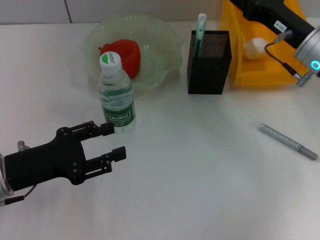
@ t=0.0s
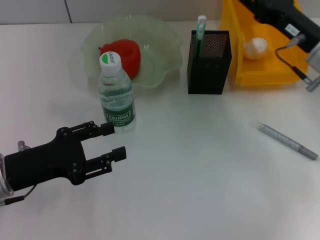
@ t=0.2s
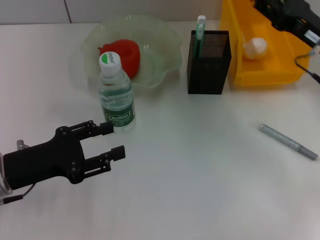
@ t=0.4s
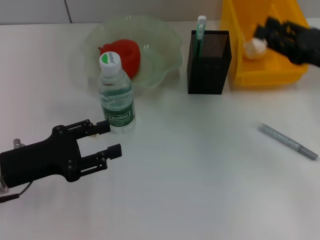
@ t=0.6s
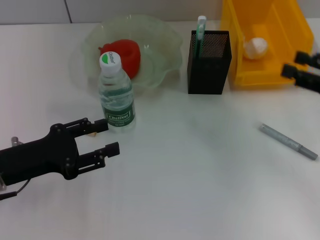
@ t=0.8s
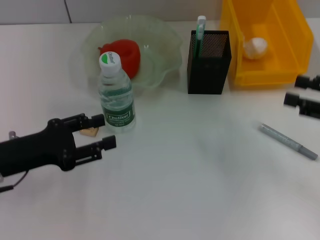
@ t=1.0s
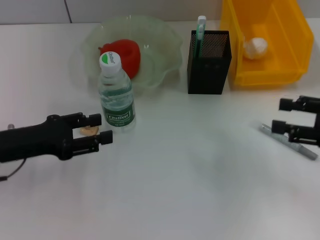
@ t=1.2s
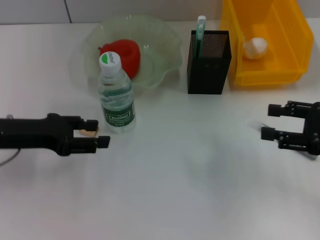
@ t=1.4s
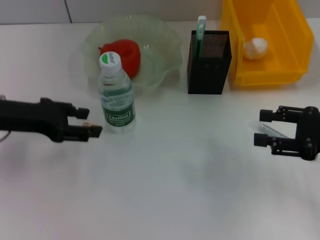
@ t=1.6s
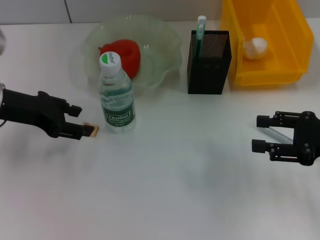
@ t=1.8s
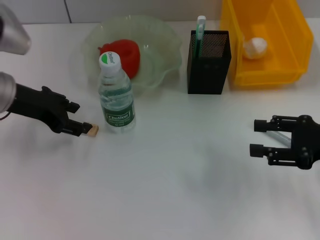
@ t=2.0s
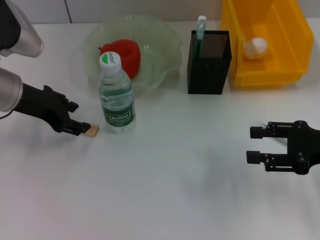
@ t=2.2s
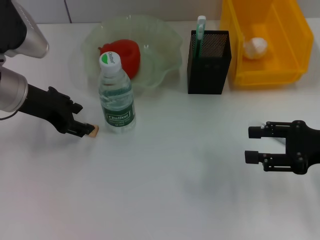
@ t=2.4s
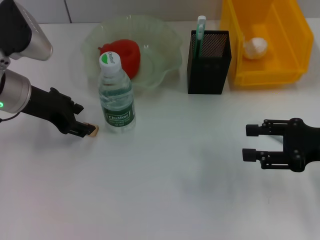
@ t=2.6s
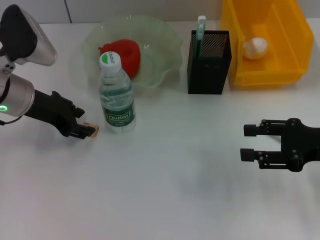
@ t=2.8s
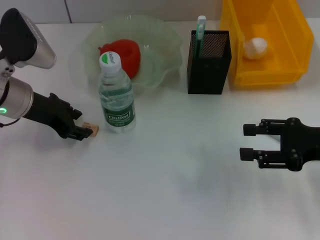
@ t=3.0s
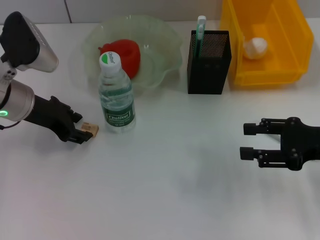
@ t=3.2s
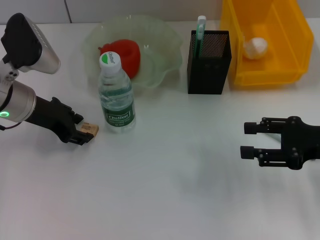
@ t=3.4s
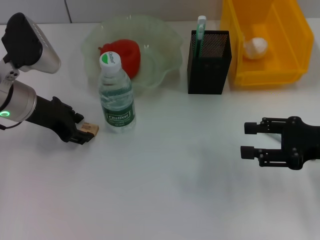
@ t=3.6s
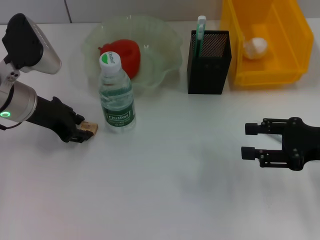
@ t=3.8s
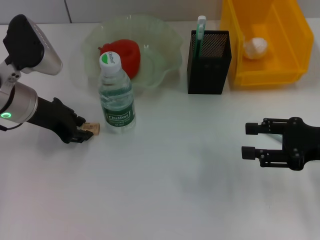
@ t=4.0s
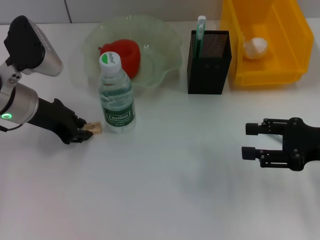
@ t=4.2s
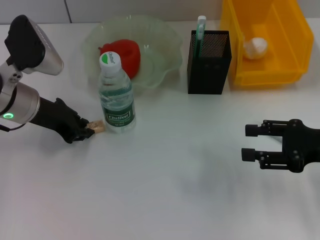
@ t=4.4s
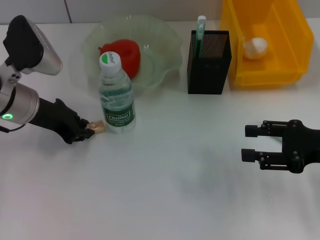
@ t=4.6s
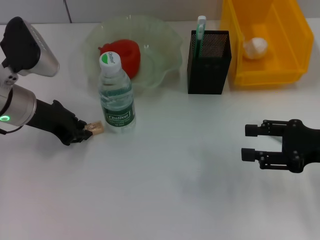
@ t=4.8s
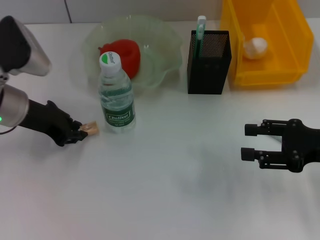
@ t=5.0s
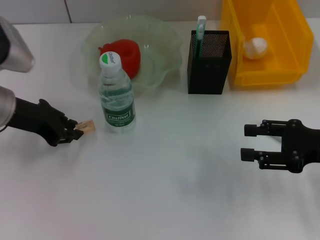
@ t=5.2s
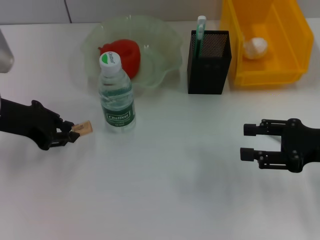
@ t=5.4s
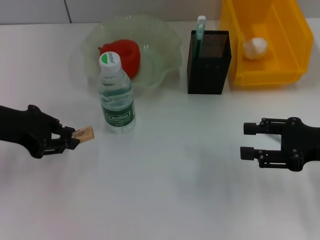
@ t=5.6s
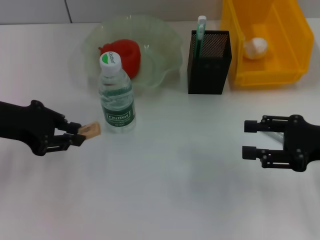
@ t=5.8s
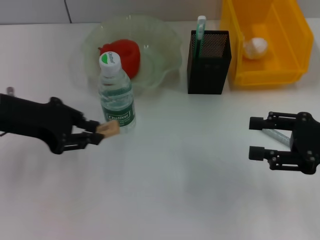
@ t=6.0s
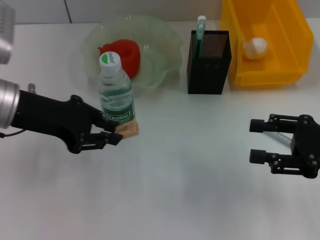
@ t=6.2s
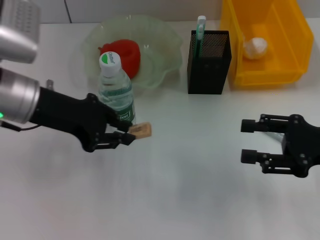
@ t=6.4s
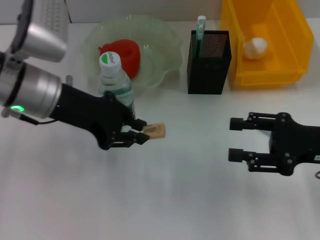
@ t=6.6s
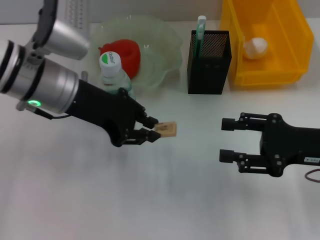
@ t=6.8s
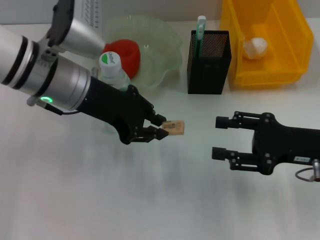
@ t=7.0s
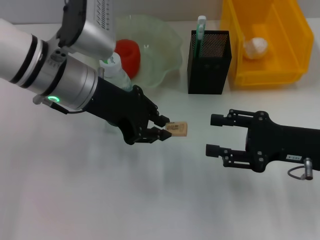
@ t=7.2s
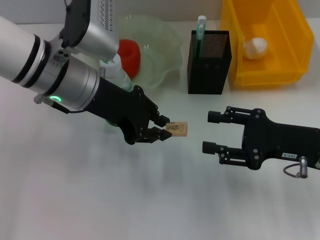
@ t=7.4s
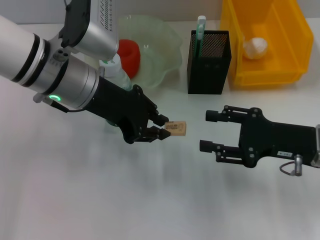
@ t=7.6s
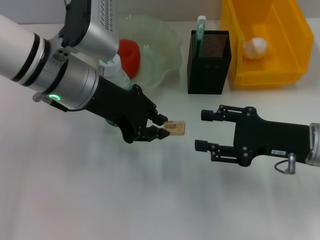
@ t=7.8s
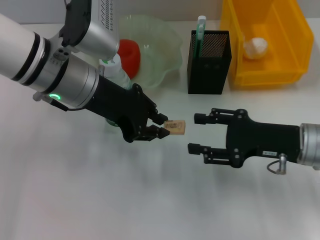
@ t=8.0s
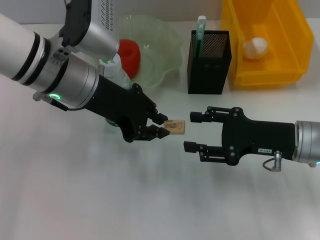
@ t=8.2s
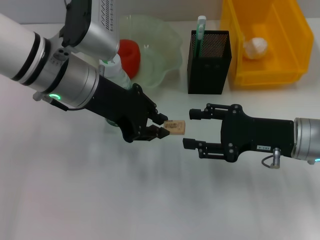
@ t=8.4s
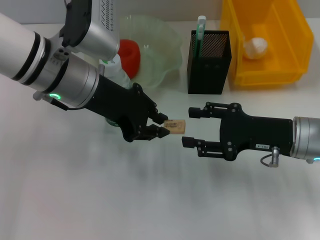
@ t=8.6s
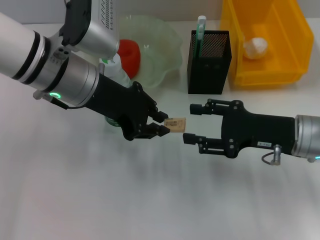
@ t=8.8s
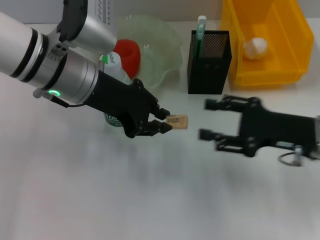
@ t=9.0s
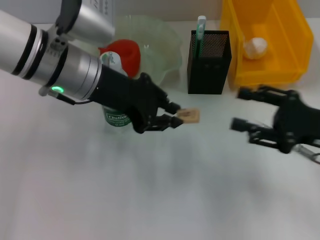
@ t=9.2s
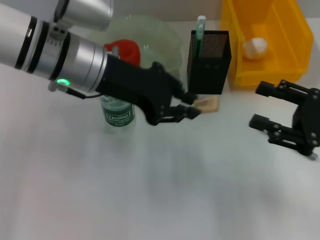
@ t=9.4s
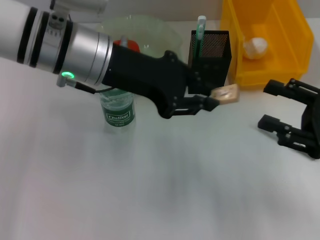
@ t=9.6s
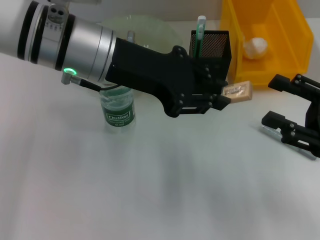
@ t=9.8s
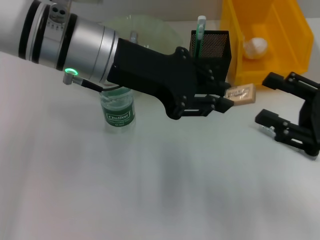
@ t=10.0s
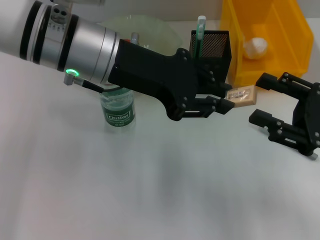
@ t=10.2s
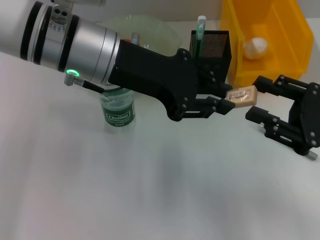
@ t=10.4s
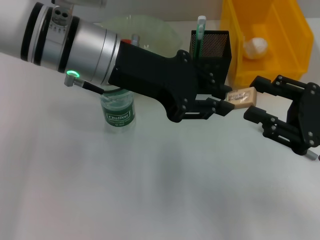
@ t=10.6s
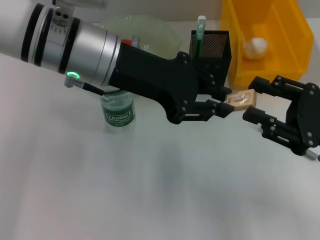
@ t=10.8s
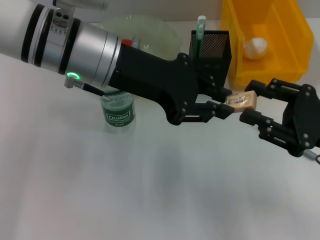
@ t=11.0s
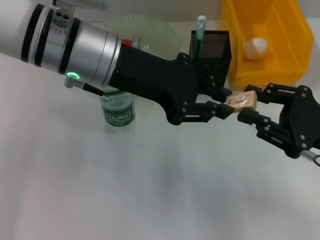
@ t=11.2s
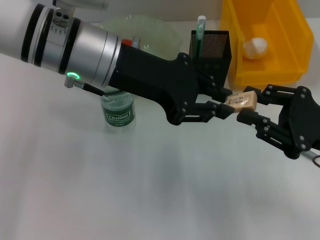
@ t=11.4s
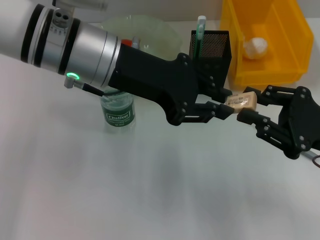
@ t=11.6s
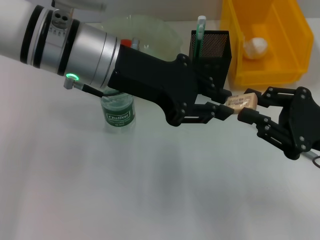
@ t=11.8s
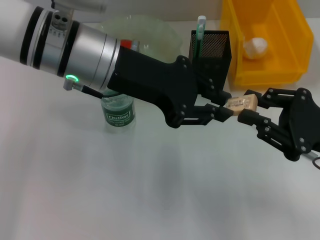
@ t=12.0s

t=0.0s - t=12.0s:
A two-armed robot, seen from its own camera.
Step, t=0.0s - t=4.6s: Grab the eraser with the left hand.
t=0.0s - t=1.6s: The left gripper is displaced forward and upward by some 10 cm. Meanwhile the right gripper moves backward and to the right, about 15 cm.
t=1.6s - t=3.0s: The left gripper shifts by some 5 cm.
t=3.0s - t=4.4s: The left gripper closes up.
t=4.4s - t=6.0s: The left gripper heads upward, covering approximately 5 cm.
t=6.0s - t=7.6s: The left gripper heads to the right, covering roughly 10 cm, while the right gripper travels to the left by roughly 5 cm.
t=7.6s - t=9.0s: The grippers make only small movements.
t=10.4s - t=12.0s: The right gripper closes its fingers.

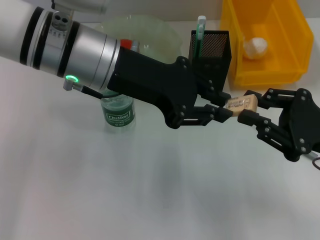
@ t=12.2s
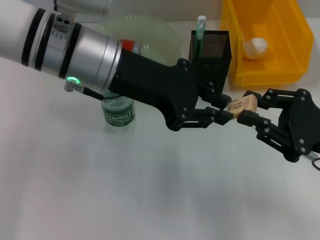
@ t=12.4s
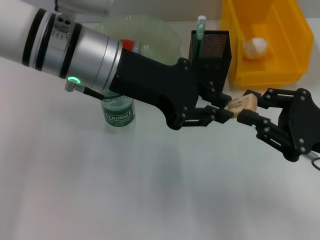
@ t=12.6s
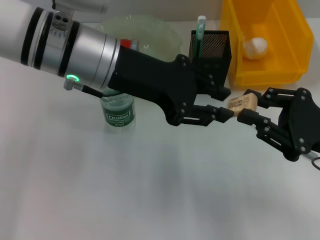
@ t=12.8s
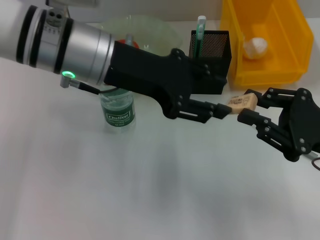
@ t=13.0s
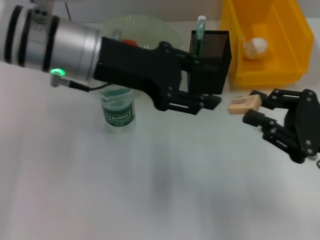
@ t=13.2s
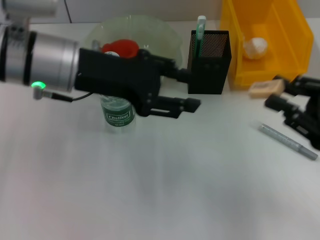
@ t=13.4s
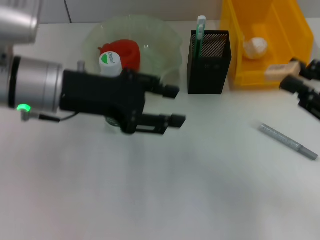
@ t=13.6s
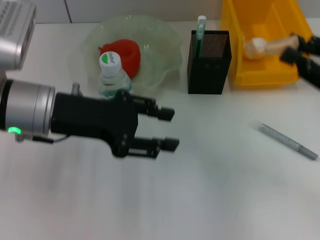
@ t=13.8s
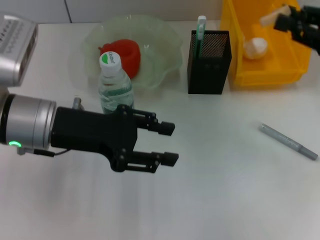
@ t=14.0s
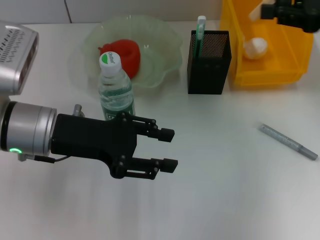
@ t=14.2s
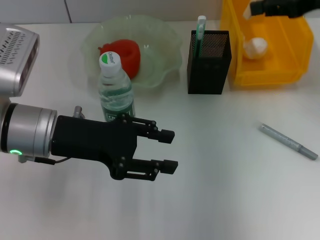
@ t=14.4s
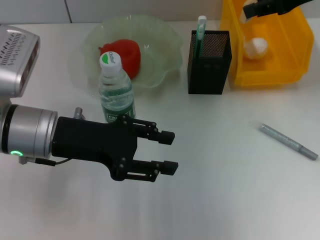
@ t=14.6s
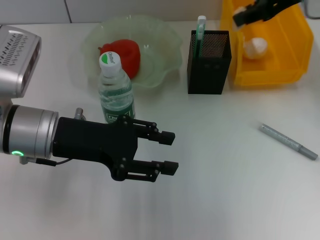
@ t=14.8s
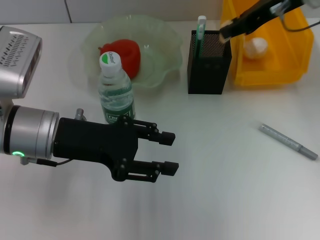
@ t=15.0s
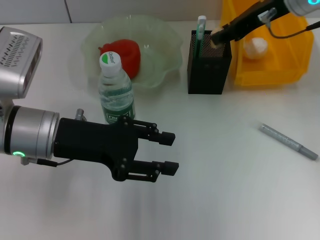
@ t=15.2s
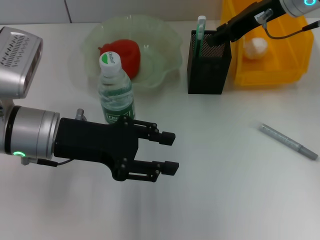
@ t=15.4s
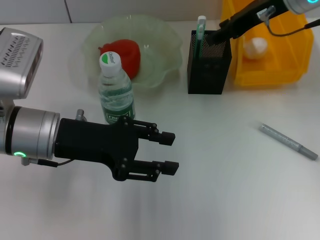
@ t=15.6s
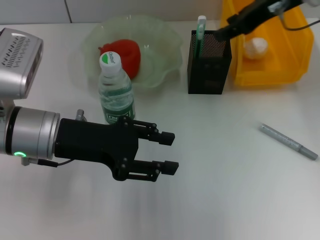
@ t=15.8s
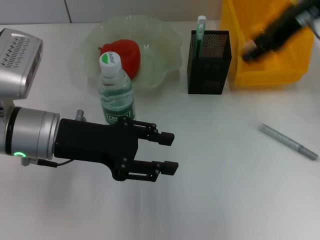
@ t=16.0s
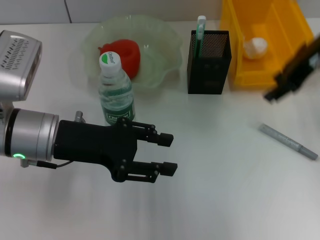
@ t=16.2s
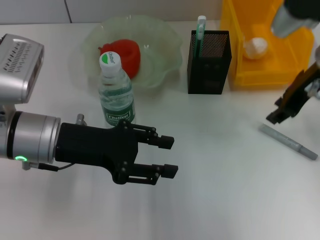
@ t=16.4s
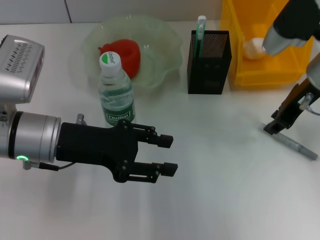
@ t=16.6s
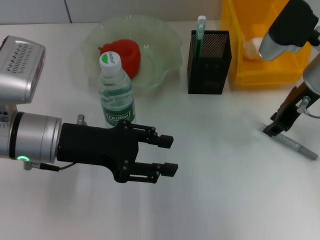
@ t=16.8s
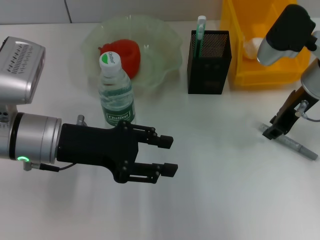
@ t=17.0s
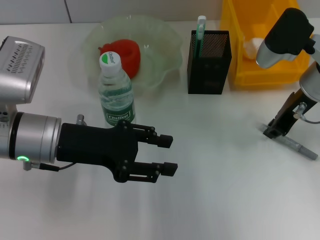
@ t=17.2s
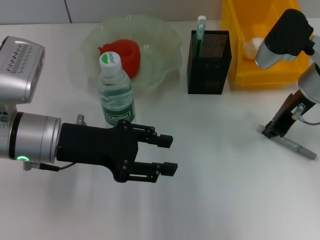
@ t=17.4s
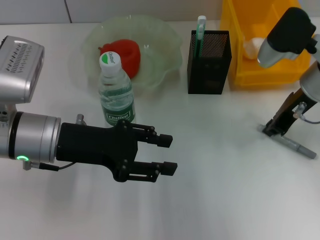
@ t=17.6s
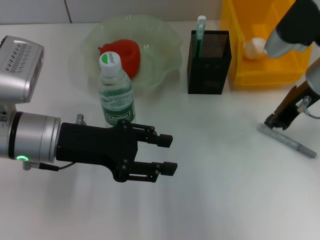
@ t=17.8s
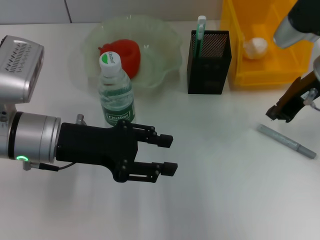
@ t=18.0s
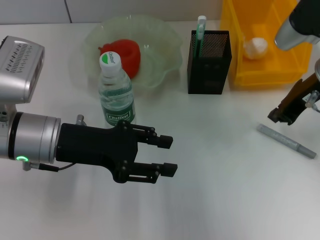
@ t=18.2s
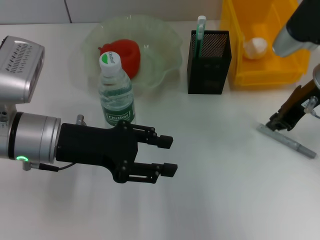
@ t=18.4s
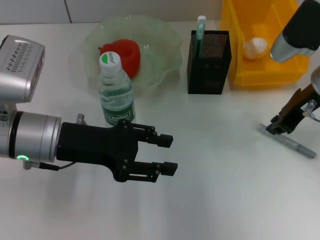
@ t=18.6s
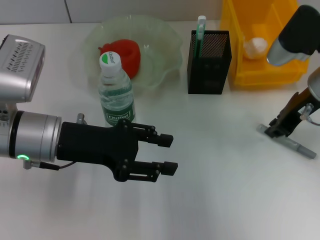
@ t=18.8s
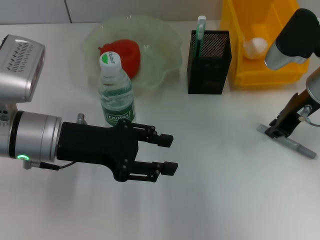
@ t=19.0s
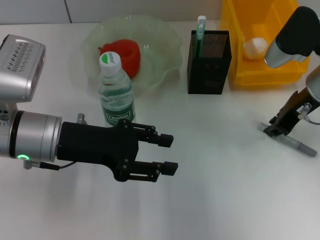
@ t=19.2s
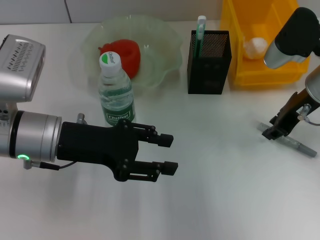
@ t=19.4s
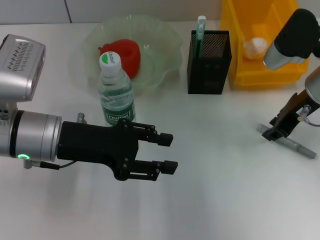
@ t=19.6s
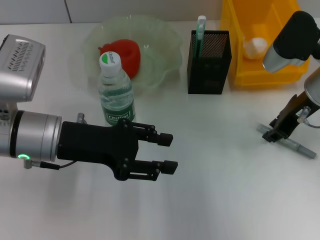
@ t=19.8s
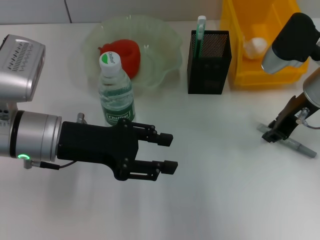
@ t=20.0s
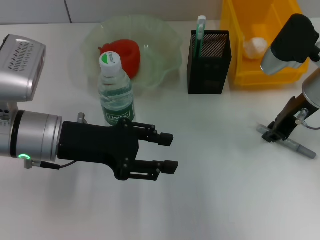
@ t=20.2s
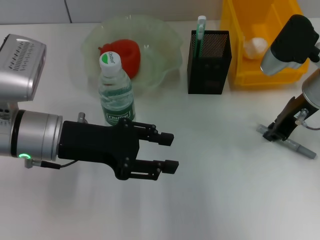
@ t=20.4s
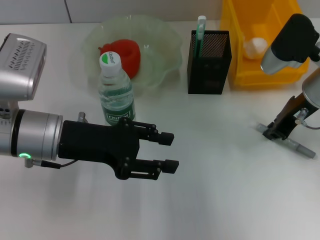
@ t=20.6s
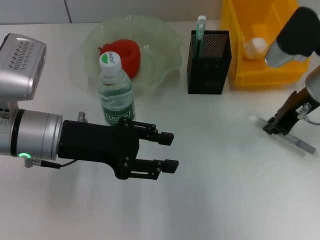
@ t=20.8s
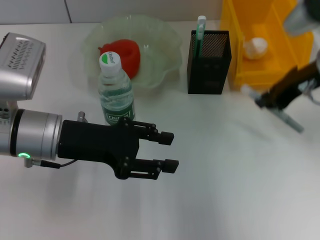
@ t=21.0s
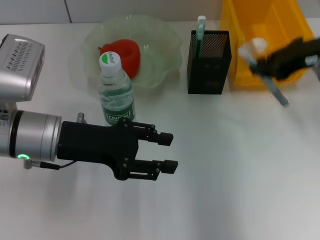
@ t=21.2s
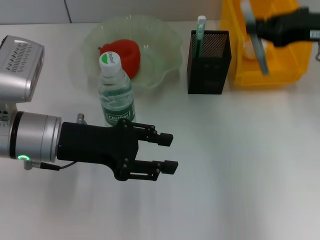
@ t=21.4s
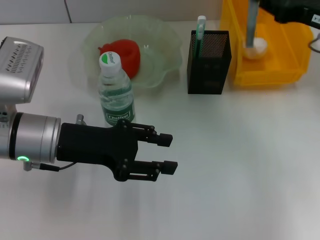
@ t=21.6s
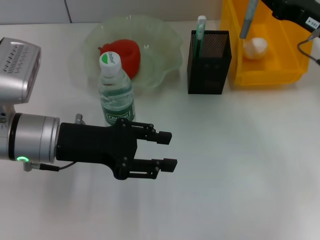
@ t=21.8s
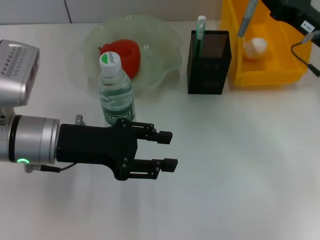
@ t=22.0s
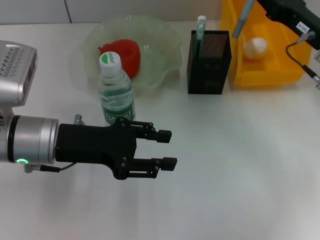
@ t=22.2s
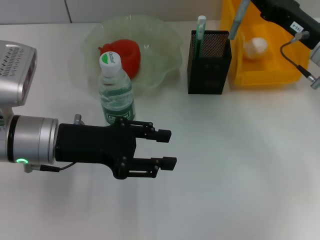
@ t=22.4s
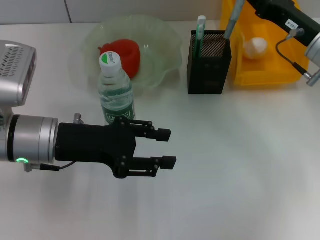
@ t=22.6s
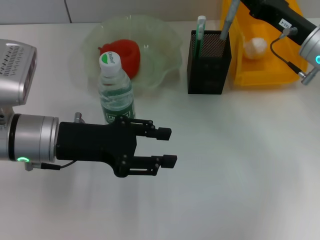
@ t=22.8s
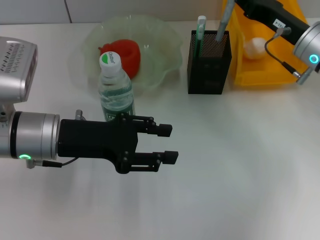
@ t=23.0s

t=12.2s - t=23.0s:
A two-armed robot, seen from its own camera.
Step, t=13.0s - t=15.4s: Put the eraser into the pen holder with the right hand.
Step, t=15.6s - t=20.4s: Grab the gray glue with the right hand.
t=12.2s - t=13.8s: The left gripper moves to the left and downward, approximately 10 cm, and opens; the right gripper shifts by about 5 cm.
t=13.8s - t=15.2s: The right gripper shifts about 20 cm forward, to the left and upward.
t=15.2s - t=16.8s: The right gripper heads downward and backward, covering approximately 10 cm.
t=16.8s - t=18.4s: The right gripper closes.
t=18.4s - t=20.0s: The right gripper opens.
t=20.0s - t=21.4s: The right gripper goes roughly 5 cm upward.
t=21.4s - t=23.0s: The right gripper heads downward, covering roughly 10 cm.
